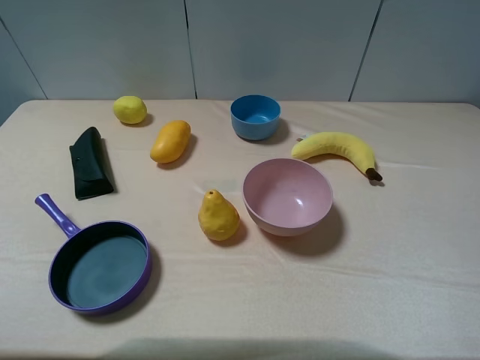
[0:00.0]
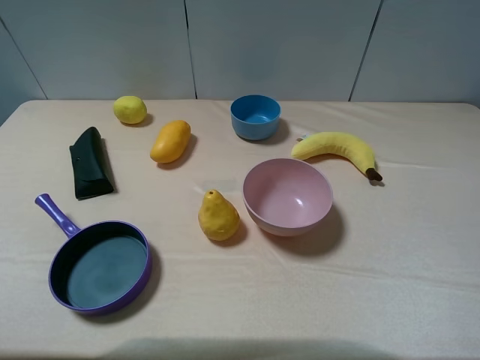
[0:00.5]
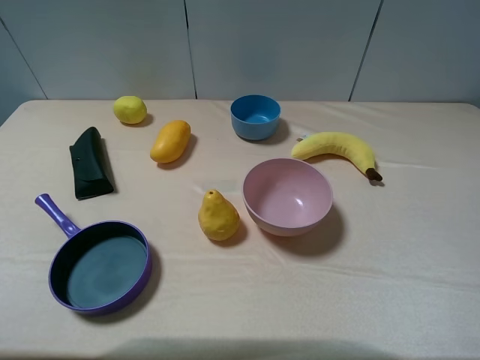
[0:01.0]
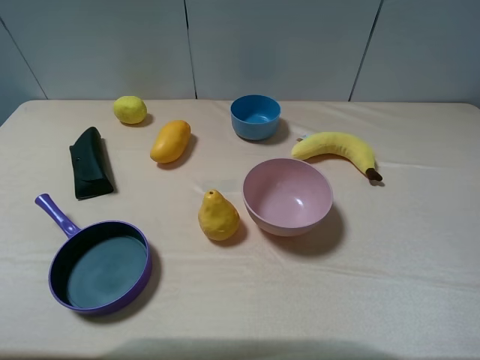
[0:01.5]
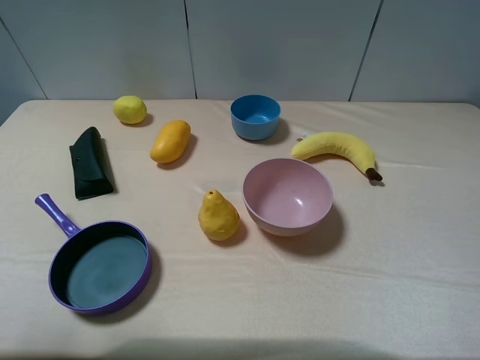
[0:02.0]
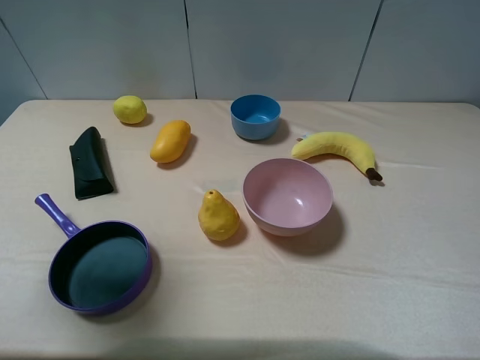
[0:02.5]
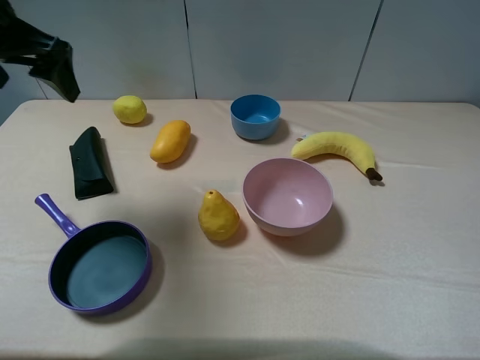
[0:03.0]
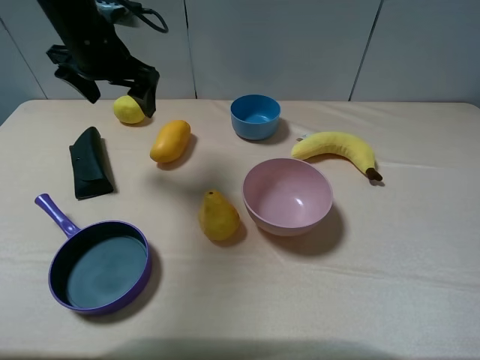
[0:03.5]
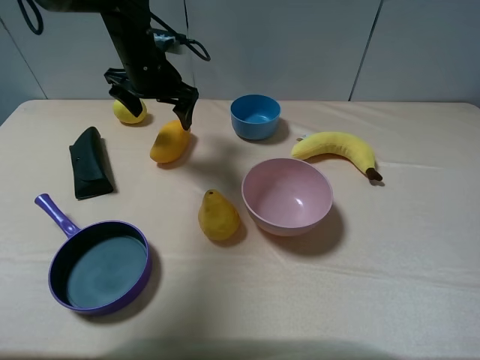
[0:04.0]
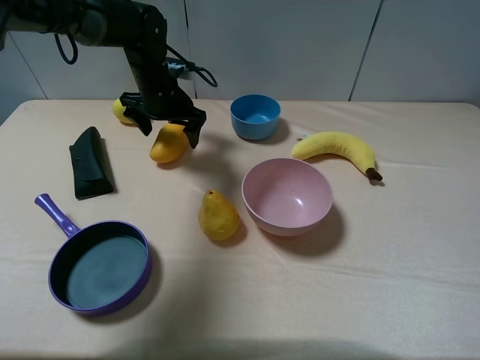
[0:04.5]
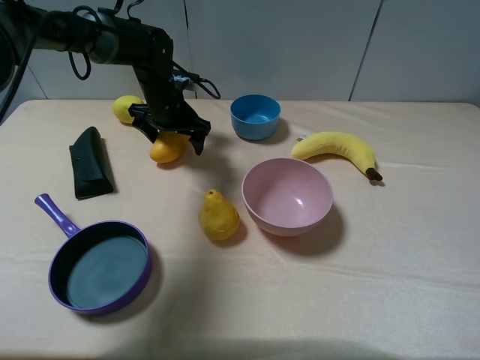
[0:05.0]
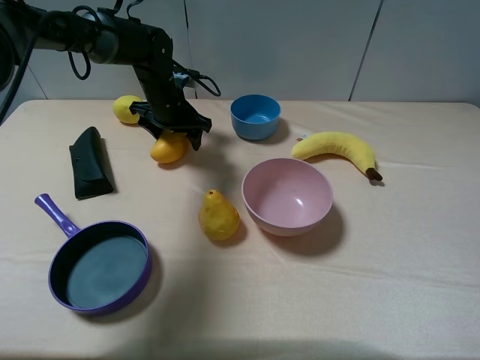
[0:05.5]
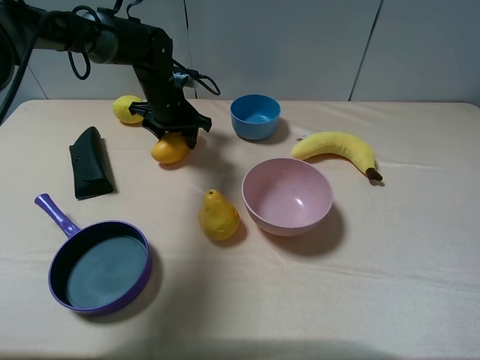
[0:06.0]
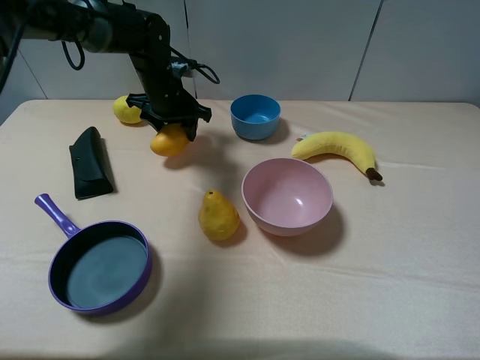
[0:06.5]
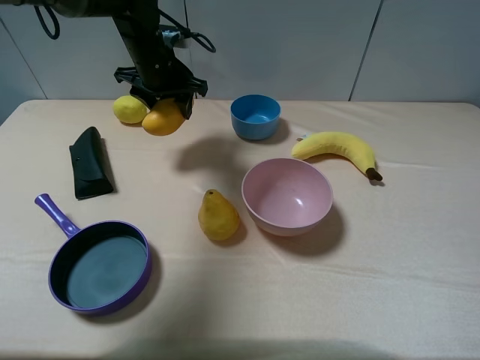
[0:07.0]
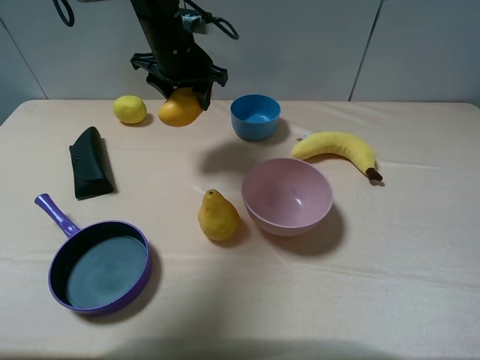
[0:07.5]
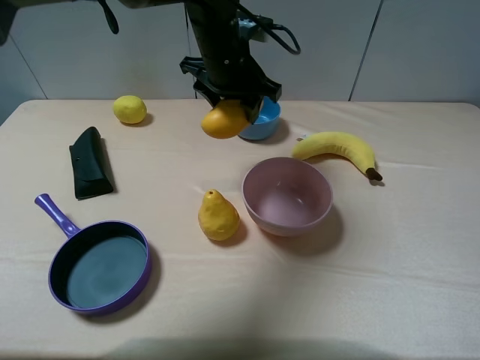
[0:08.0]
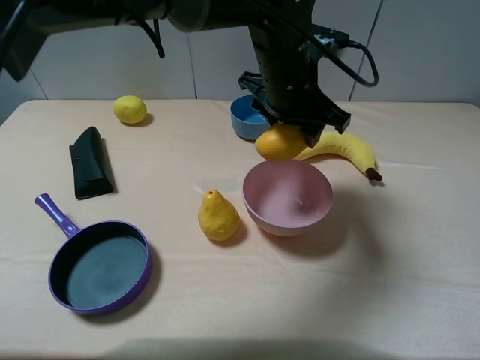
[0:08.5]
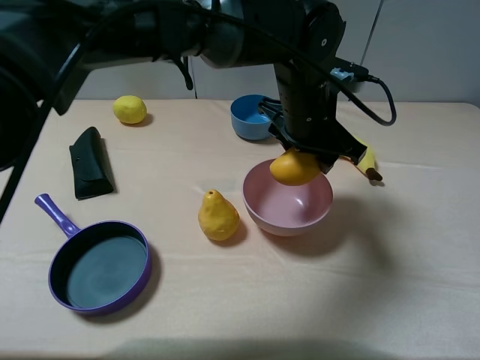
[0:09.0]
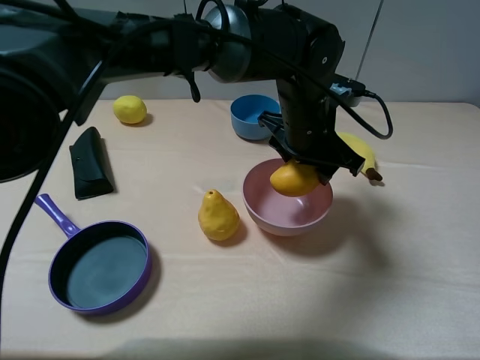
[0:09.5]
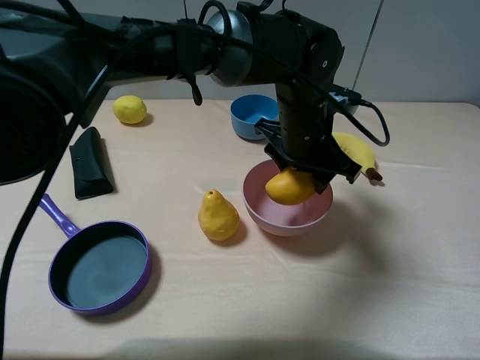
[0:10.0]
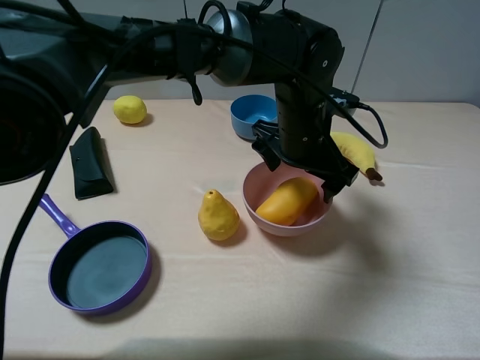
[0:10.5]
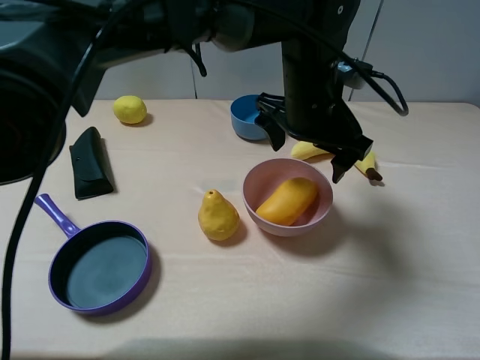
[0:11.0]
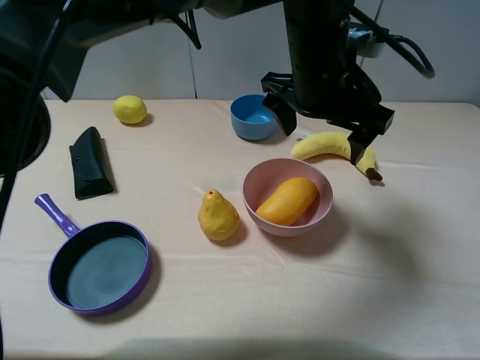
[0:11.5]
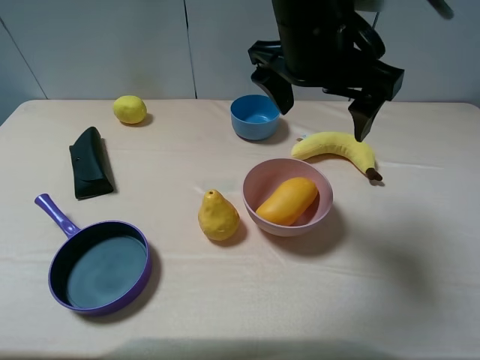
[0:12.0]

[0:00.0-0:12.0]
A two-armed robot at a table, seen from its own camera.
Task of the whole recording: pick up an item with a gripper and place it in a random container on the table.
Step, 0:00.0 to 0:05.5: Grasp the mango with the left gripper.
Step, 0:06.0 to 0:10.5: Place the mango into the pink bowl with the left gripper.
0:00.0 to 0:02.0: The left gripper travels forward and upward by some 10 cm.
0:02.0 to 0:04.0: The left gripper moves forward, to the right and downward, roughly 40 cm.
0:04.0 to 0:06.0: The left gripper is displaced downward by roughly 5 cm, and closes.
0:06.0 to 0:08.0: The left gripper shifts approximately 20 cm to the right, upward and backward.
0:08.0 to 0:10.0: The left gripper heads to the right, backward and downward, covering approximately 15 cm.
0:10.0 to 0:12.0: The left gripper heads upward, covering roughly 15 cm, and opens.

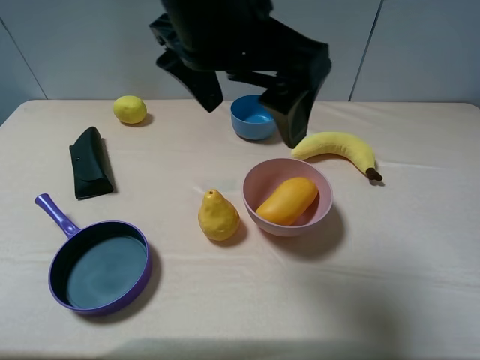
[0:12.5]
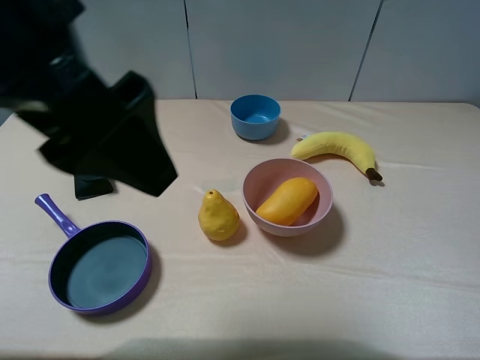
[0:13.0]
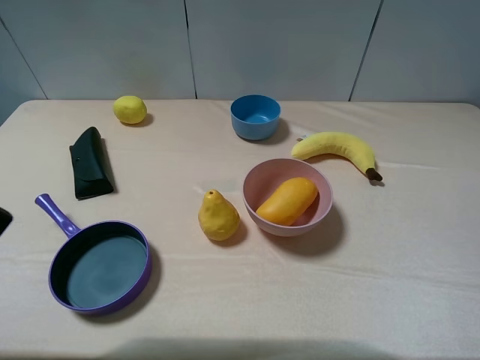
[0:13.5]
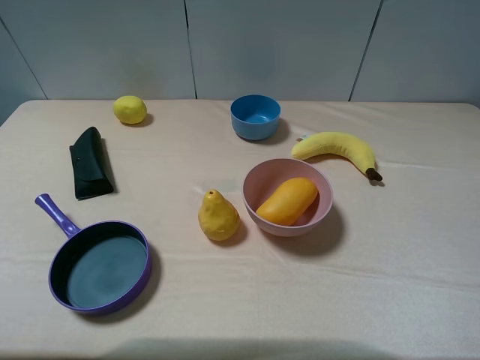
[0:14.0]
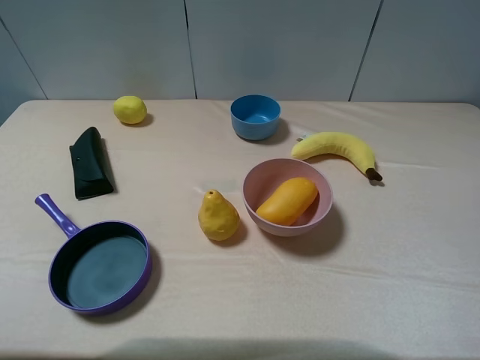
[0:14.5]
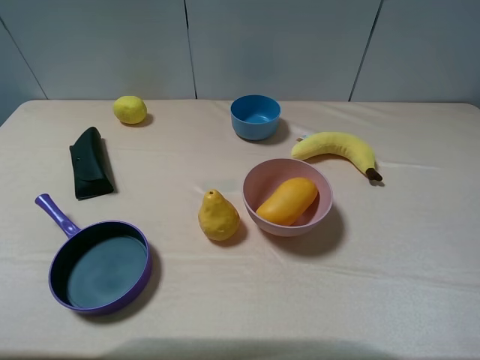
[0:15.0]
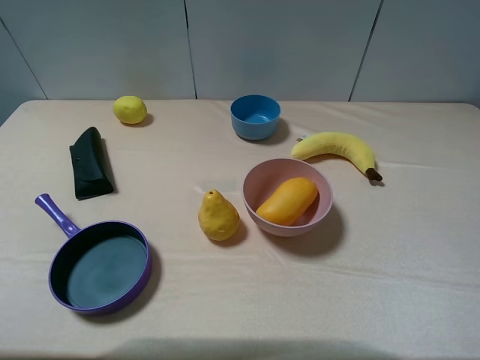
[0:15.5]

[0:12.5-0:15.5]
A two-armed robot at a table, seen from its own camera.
Task of the whole recording: pick up an item with a gripper and place it in a random container on the table.
0:12.5 to 0:14.0: The left gripper shifts about 30 cm to the left and backward.

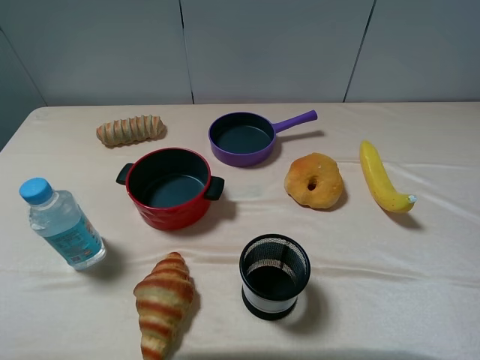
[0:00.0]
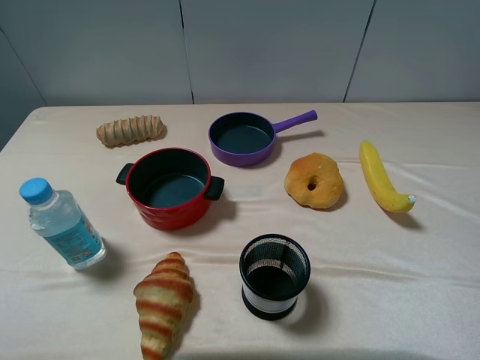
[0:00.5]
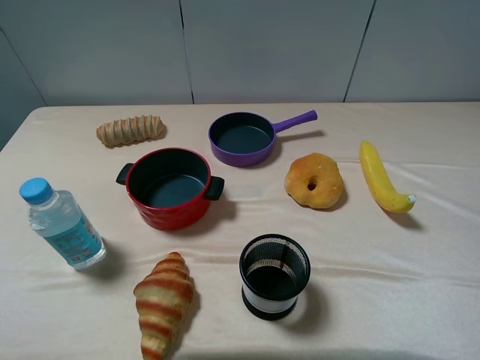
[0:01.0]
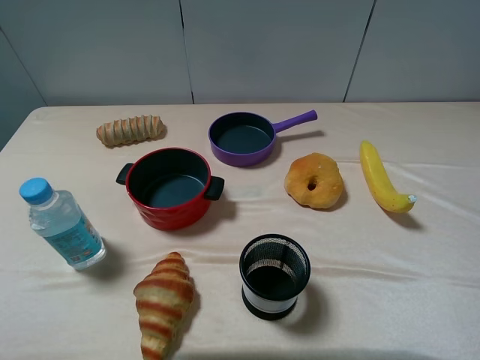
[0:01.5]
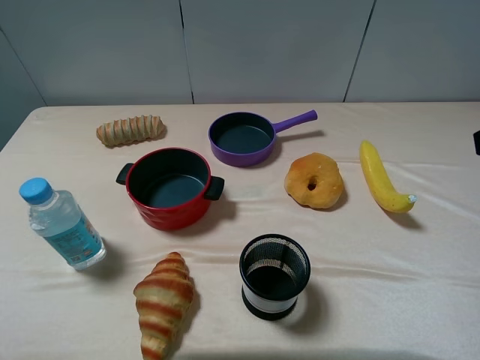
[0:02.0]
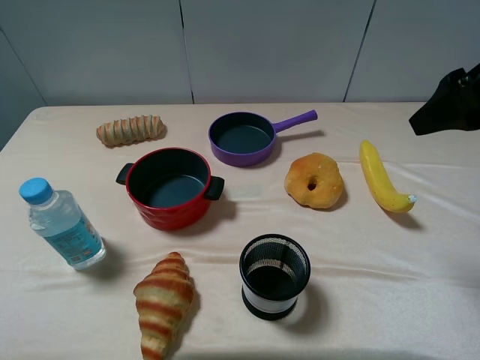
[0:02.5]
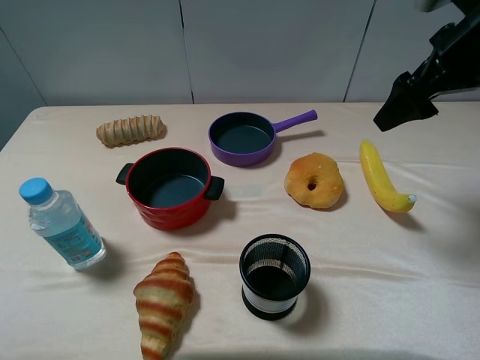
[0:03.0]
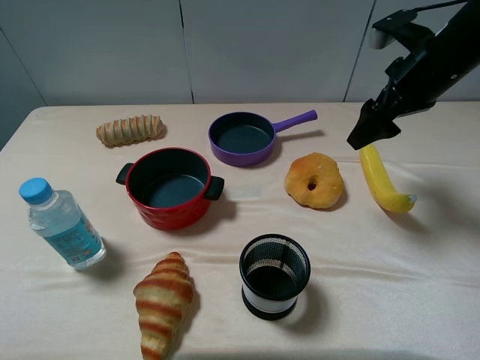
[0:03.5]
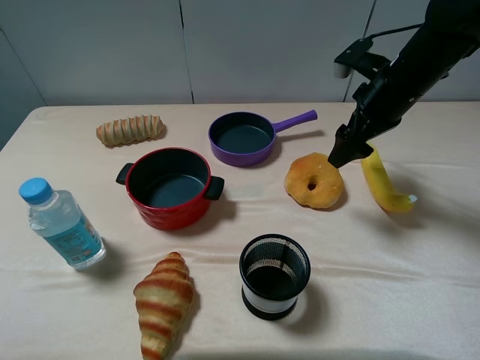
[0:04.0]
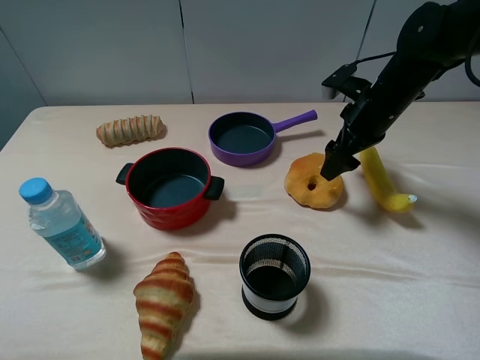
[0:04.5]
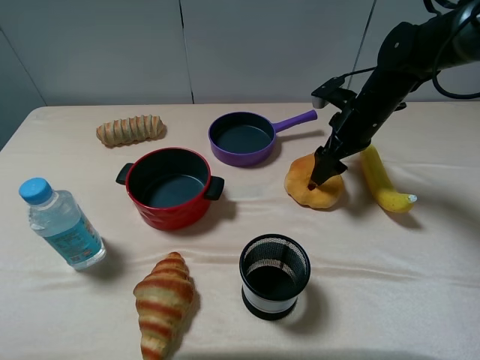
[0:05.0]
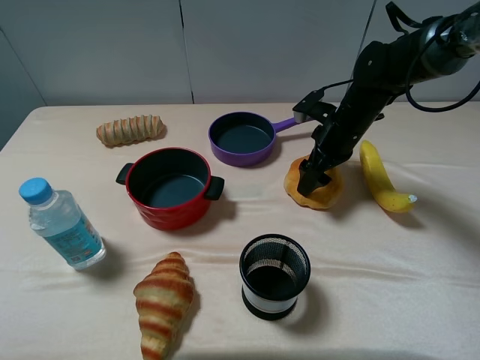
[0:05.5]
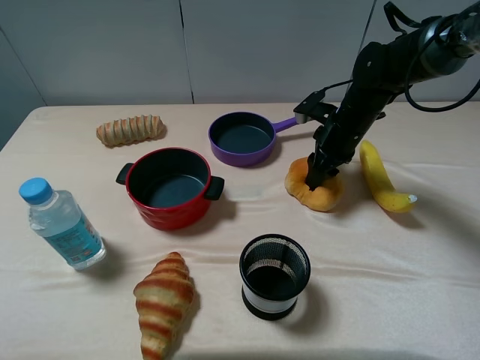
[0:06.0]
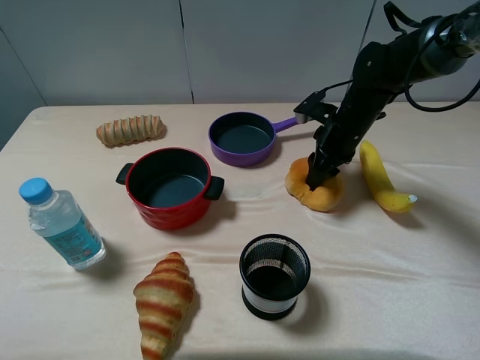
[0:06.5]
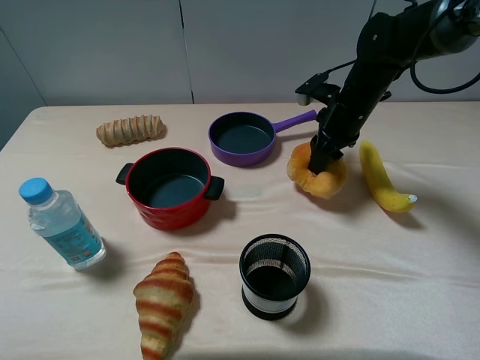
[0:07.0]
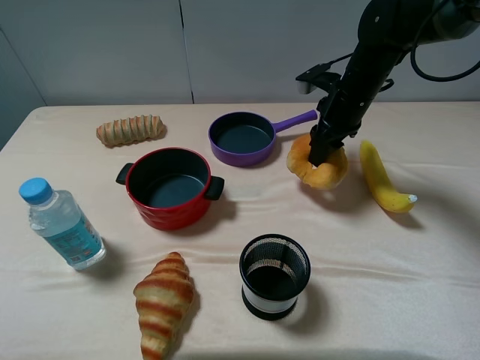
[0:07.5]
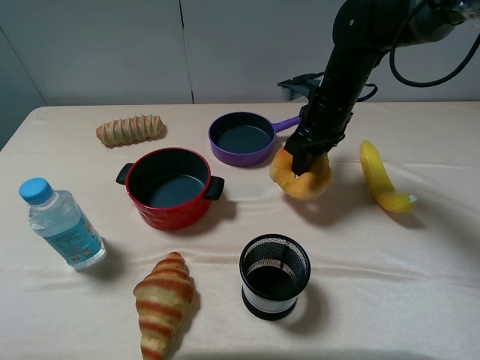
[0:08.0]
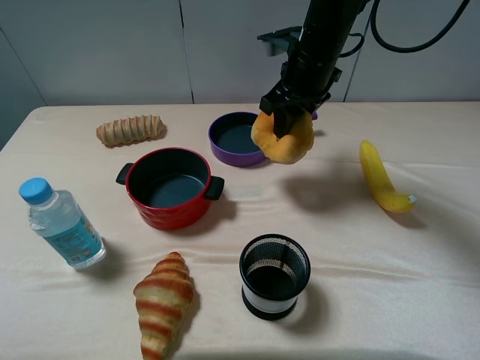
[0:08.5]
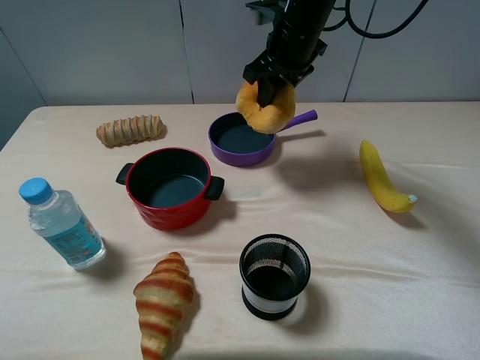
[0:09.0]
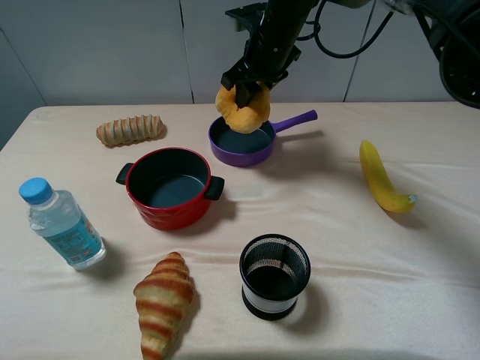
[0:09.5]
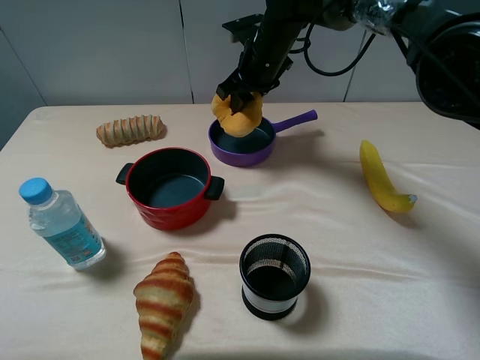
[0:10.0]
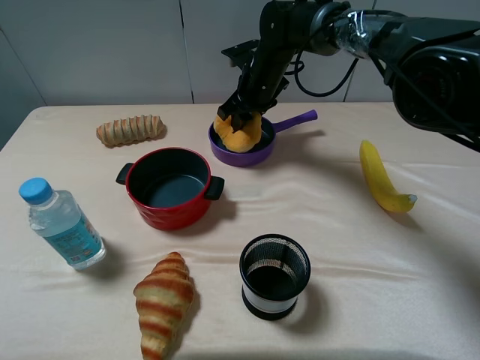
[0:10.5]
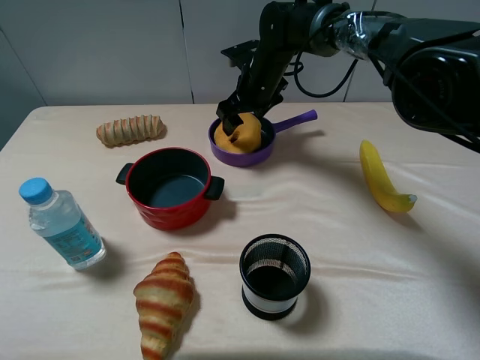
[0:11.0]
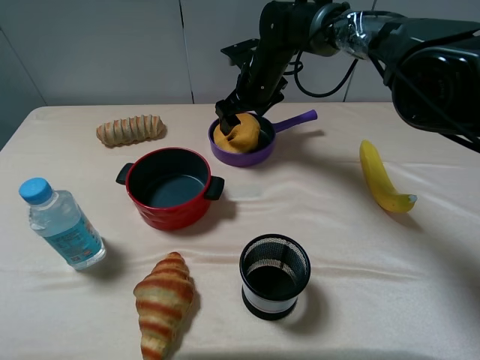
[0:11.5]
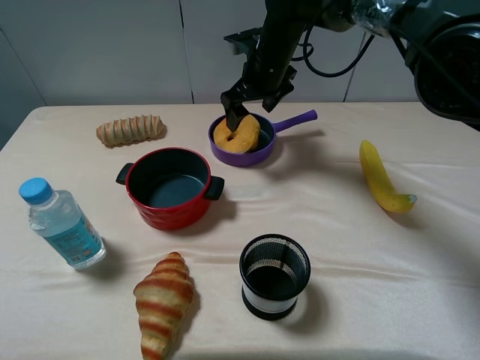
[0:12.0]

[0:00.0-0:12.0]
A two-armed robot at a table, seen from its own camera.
Task of the whole recording: pick up an item with a gripper and place it in a random container on the table.
Step, 0:00.0 to 0:06.5: Grasp the hollow ring bread with the right gripper.
0:02.0 to 0:04.0: The right gripper moves forward and downward, roughly 25 cm.
0:04.0 to 0:06.0: The right gripper travels downward by about 10 cm, and closes up.
0:06.0 to 0:08.0: The right gripper goes some 5 cm upward.
0:08.0 to 0:10.0: The right gripper heads to the left and forward, covering approximately 15 cm.
0:10.0 to 0:12.0: The right gripper opens up.
